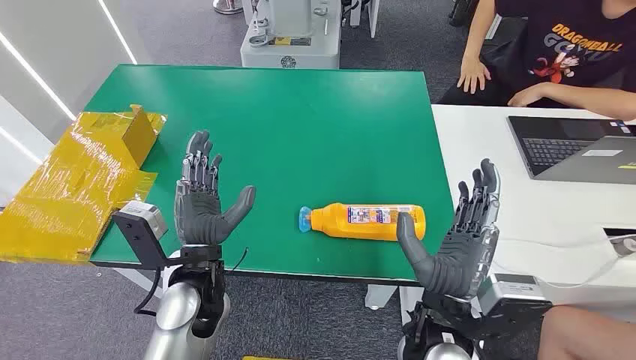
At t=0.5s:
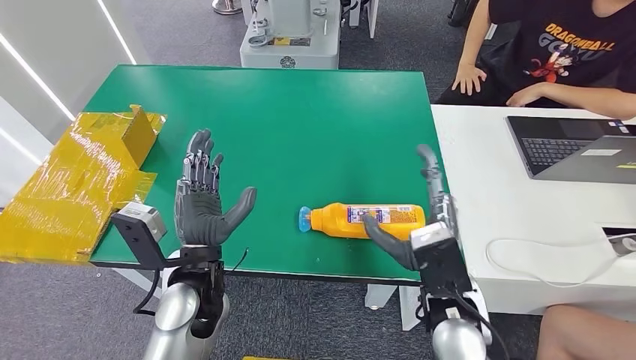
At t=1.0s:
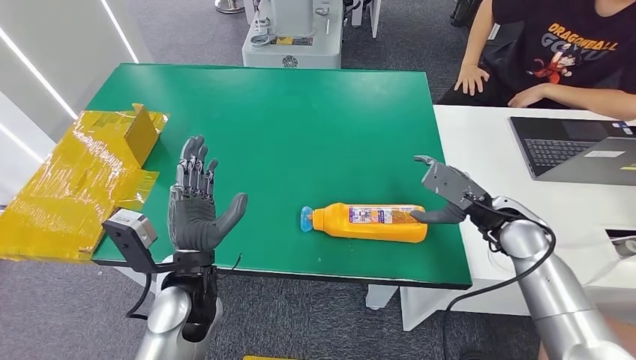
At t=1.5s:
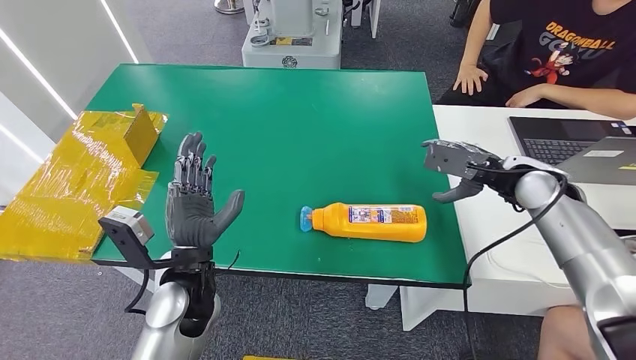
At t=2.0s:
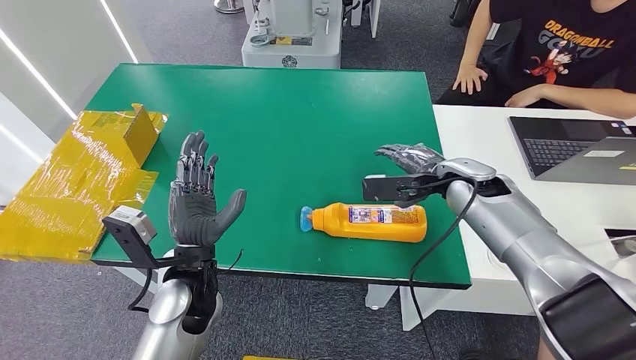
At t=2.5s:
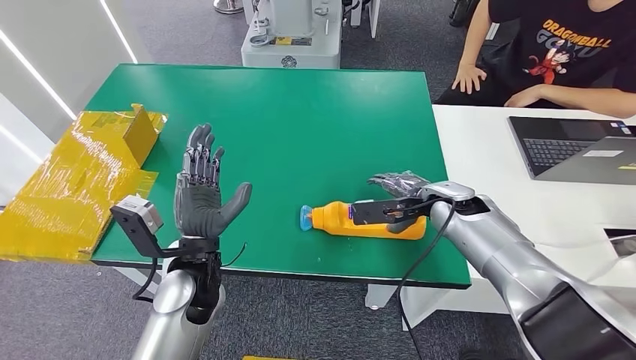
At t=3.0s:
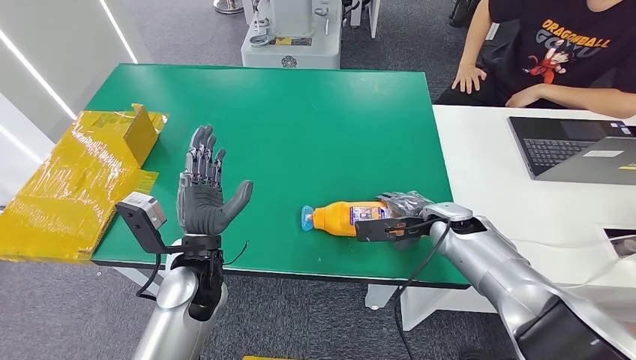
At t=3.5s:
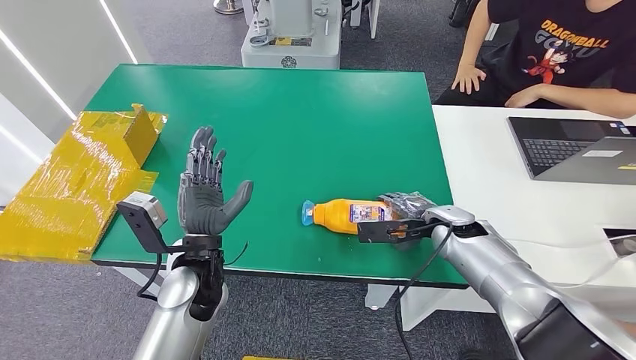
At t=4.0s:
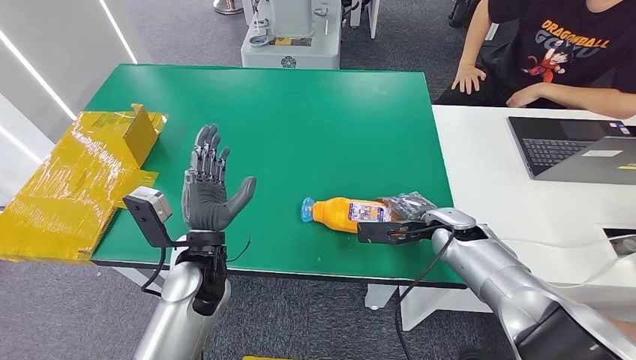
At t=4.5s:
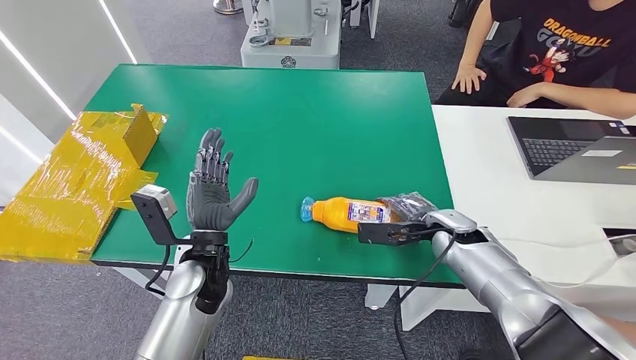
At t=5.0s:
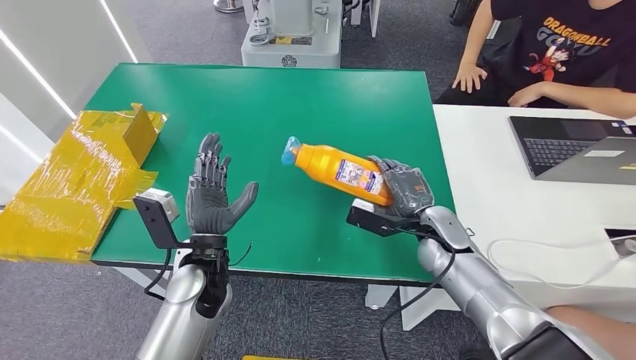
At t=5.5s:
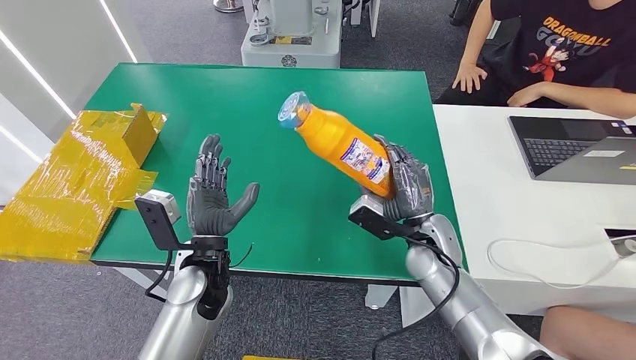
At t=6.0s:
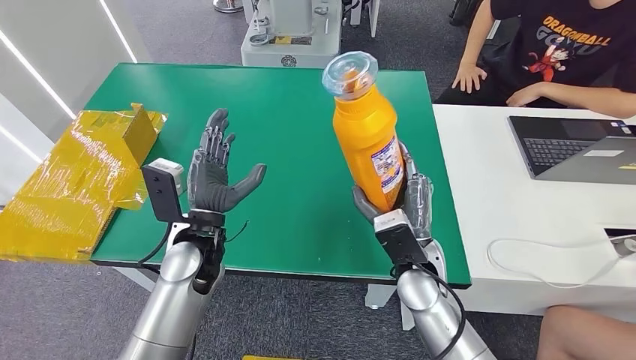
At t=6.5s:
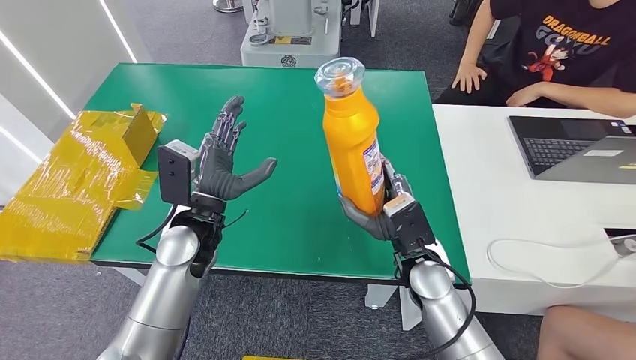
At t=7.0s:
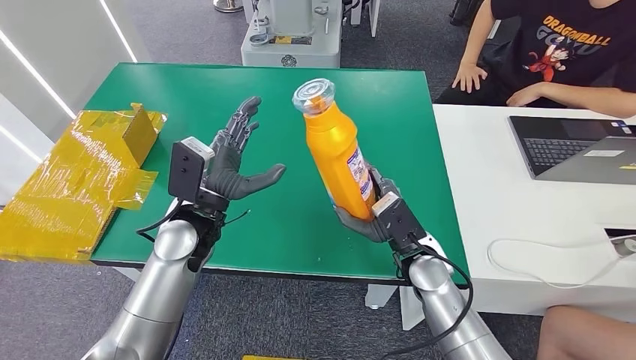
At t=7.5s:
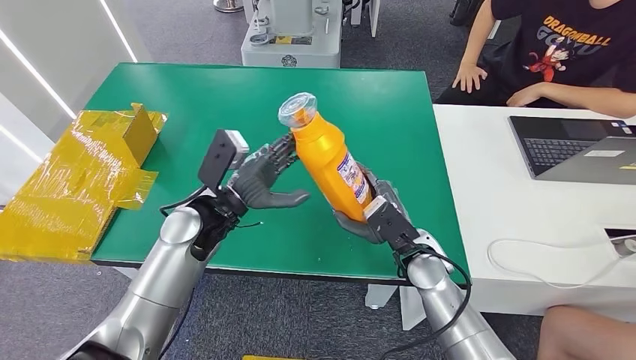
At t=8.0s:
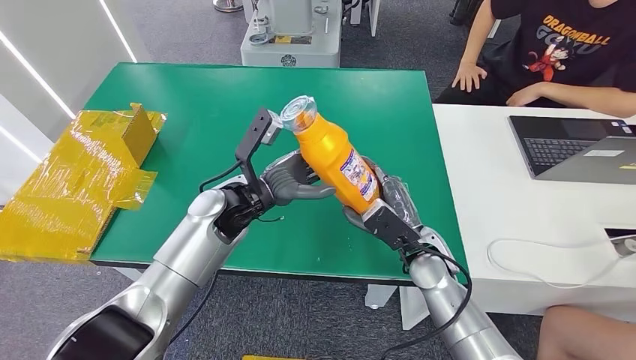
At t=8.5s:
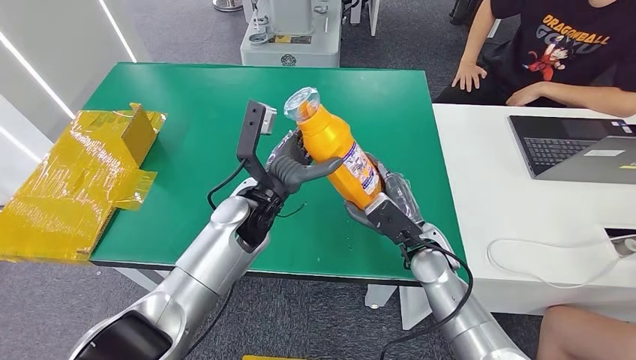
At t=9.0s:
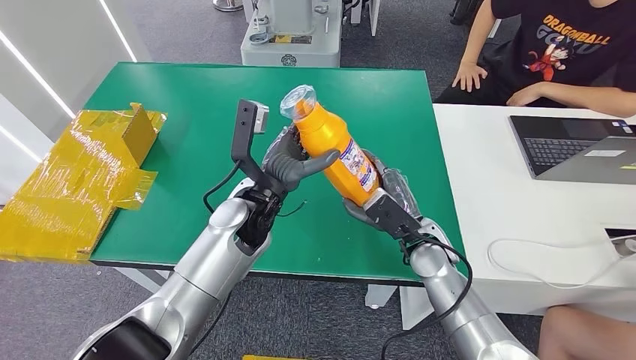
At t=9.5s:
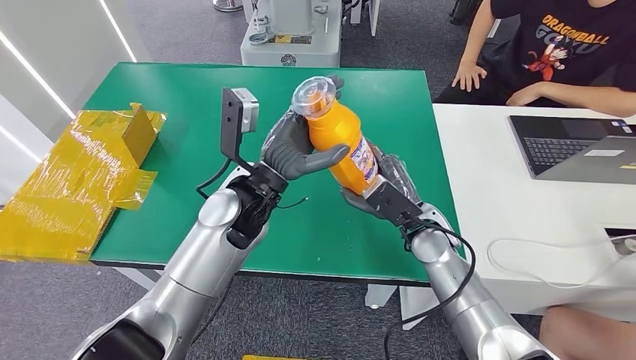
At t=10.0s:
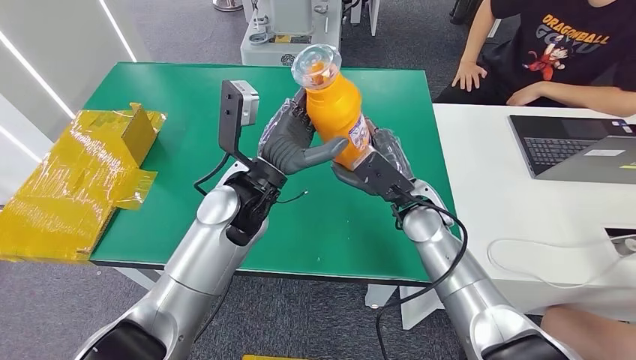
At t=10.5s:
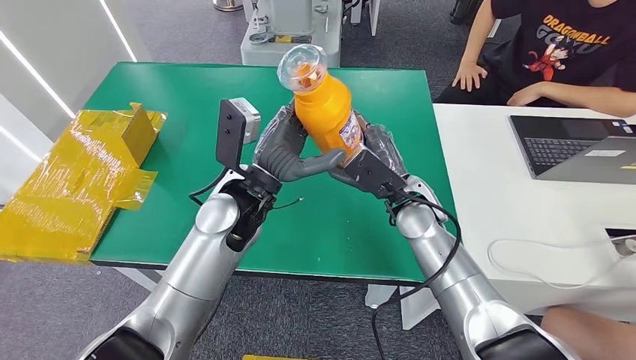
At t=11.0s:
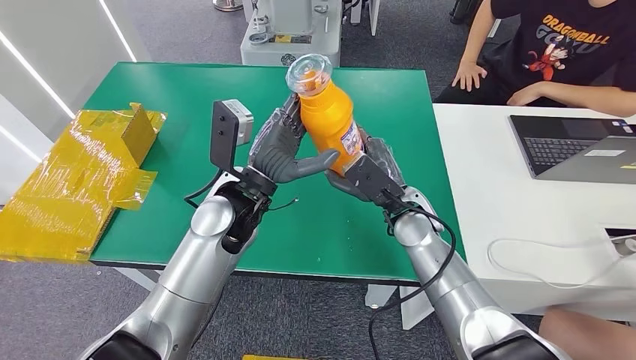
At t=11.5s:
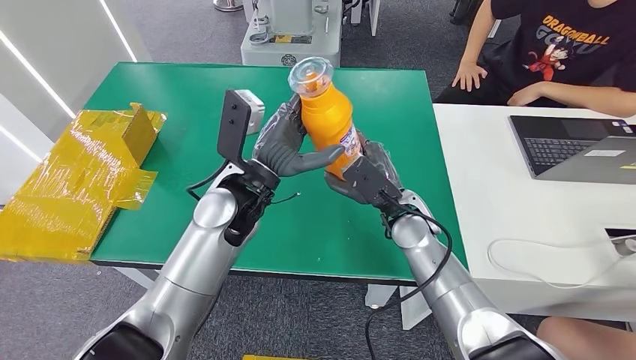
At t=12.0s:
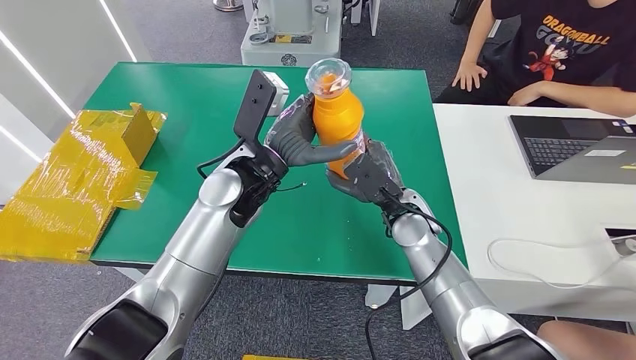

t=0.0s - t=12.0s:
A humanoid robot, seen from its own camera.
Step, t=0.0s - t=6.5s: Pick up the bottle from the table.
t=2.0s - t=4.0s: The right hand shifts roughly 10 cm downward.
t=6.0s - t=8.0s: The left hand moves forward, approximately 5 cm.
t=8.0s - t=10.0s: The right hand moves upward and forward, about 10 cm. Meanwhile the left hand moves upward and to the right, approximately 10 cm.
t=10.0s - t=12.0s: The hands stay close to where they were, moving slightly.

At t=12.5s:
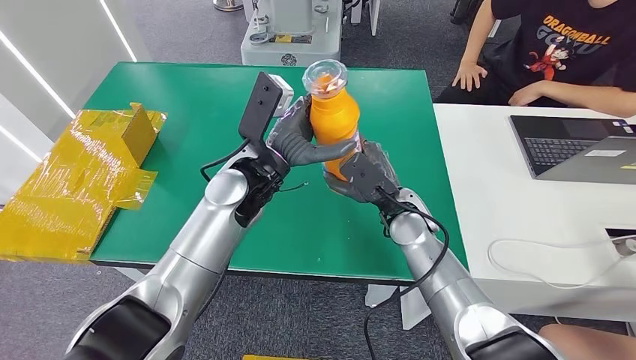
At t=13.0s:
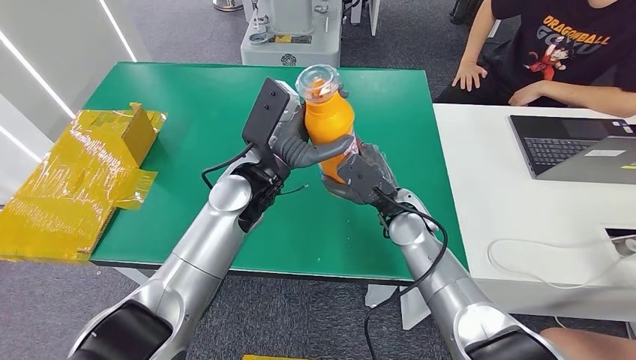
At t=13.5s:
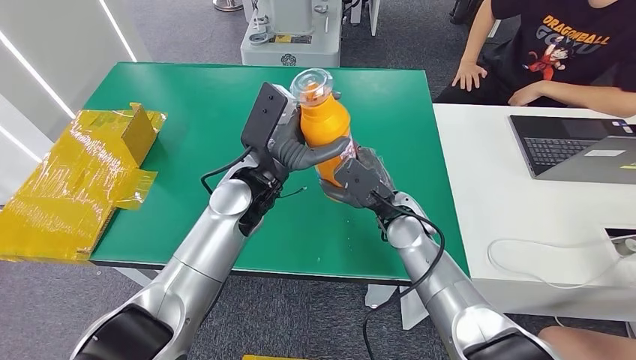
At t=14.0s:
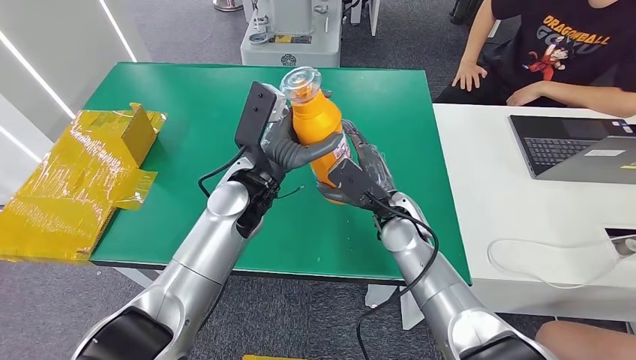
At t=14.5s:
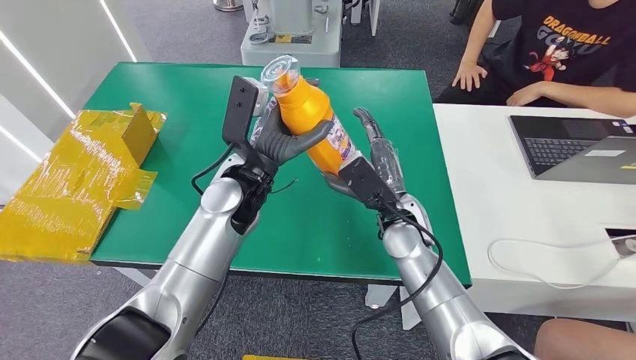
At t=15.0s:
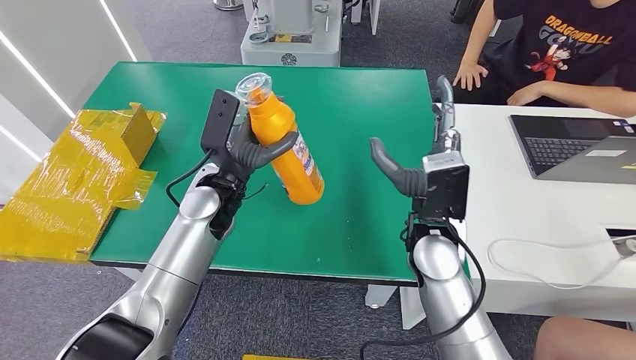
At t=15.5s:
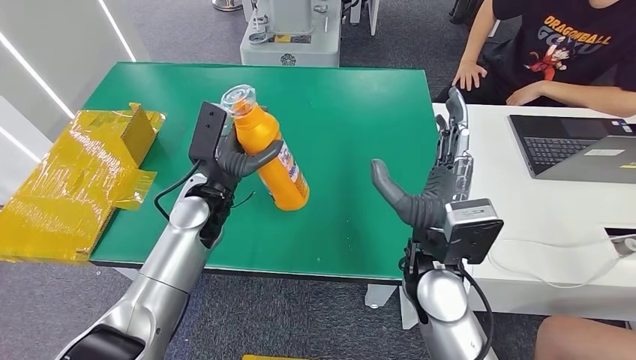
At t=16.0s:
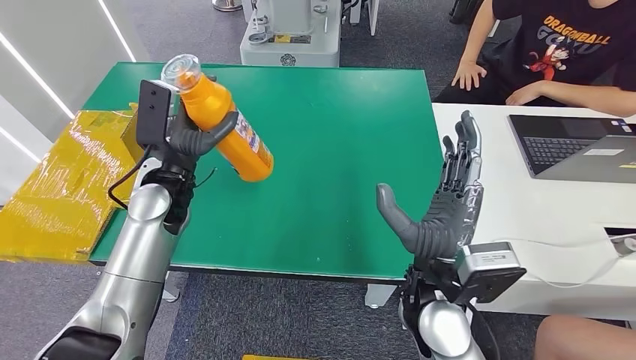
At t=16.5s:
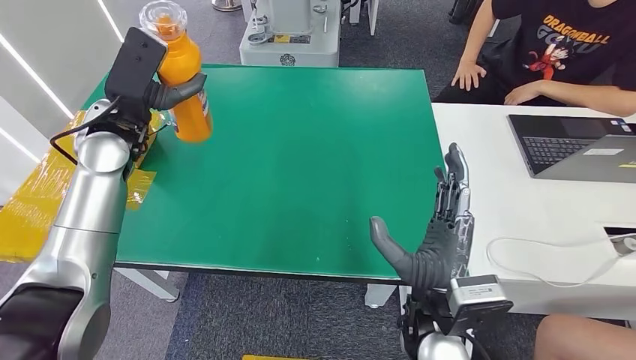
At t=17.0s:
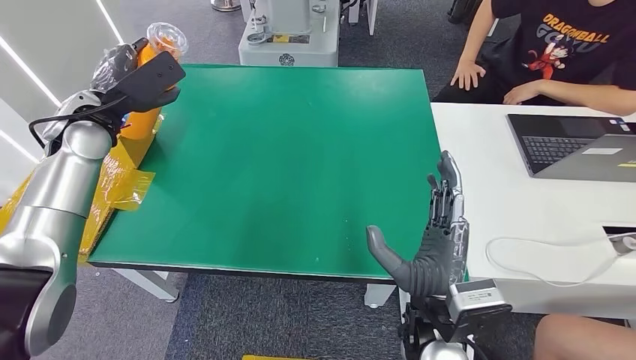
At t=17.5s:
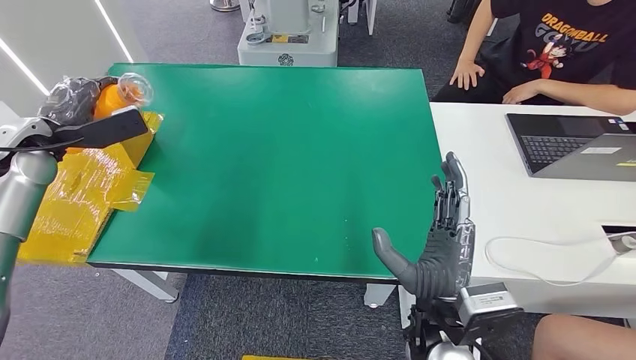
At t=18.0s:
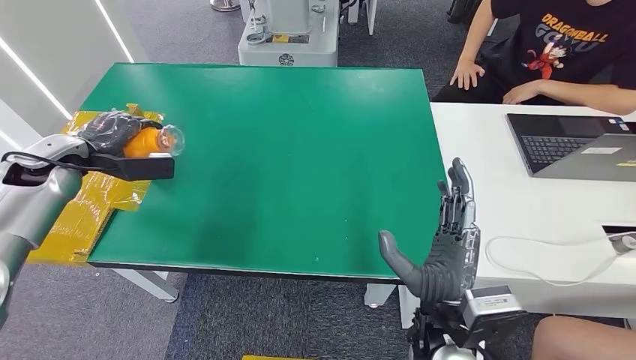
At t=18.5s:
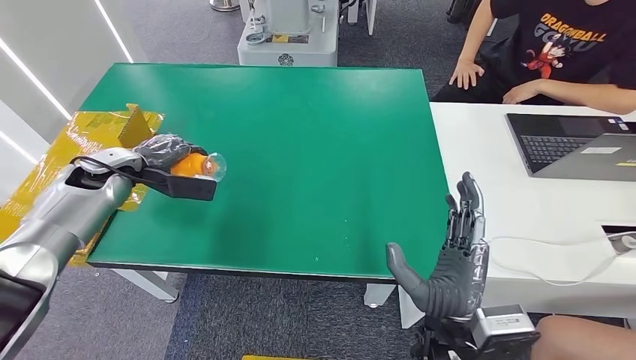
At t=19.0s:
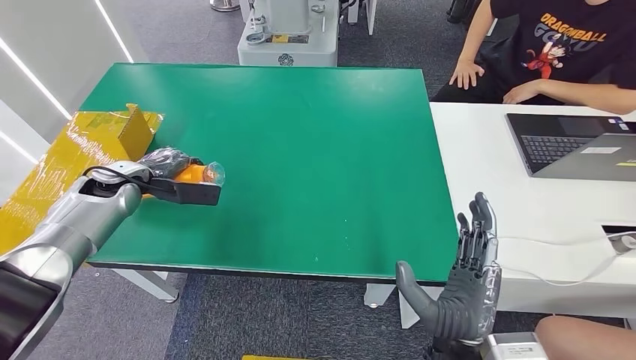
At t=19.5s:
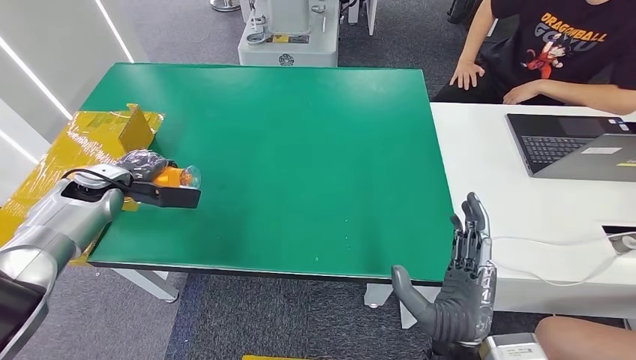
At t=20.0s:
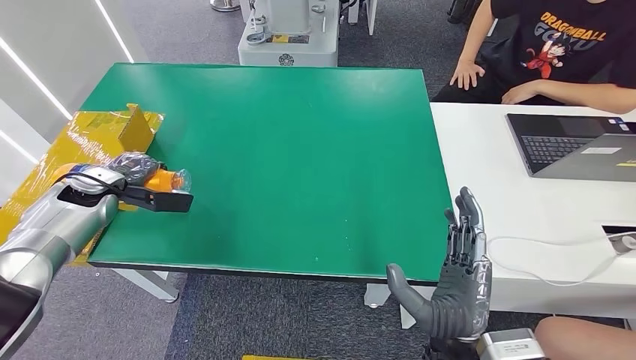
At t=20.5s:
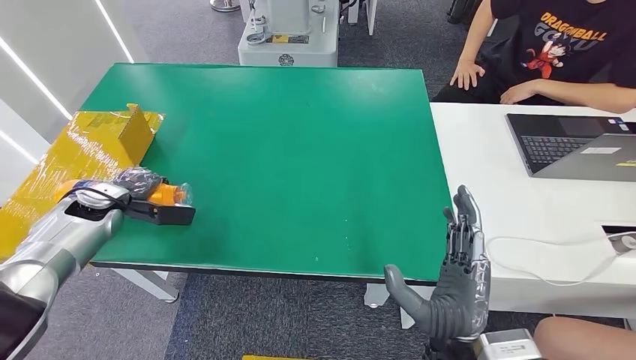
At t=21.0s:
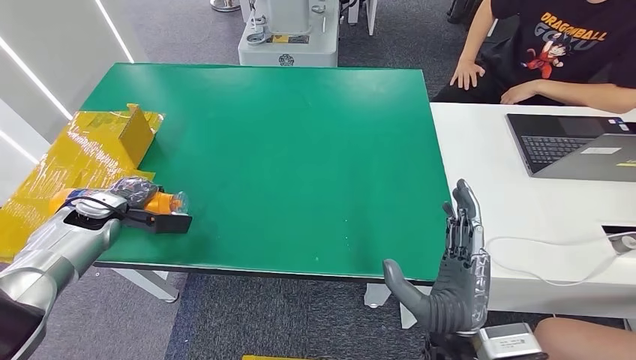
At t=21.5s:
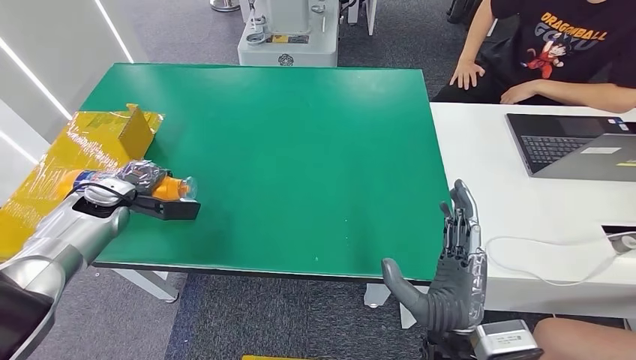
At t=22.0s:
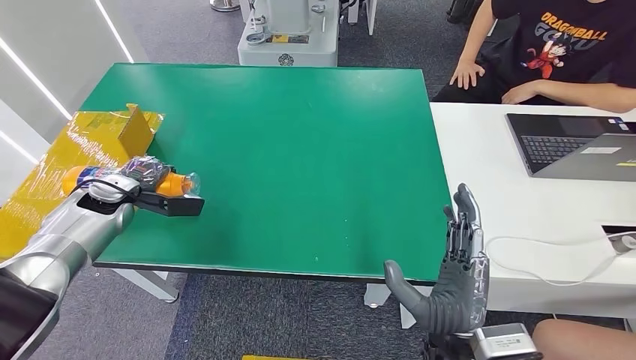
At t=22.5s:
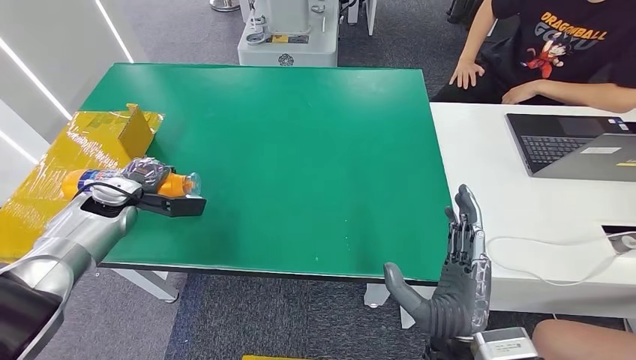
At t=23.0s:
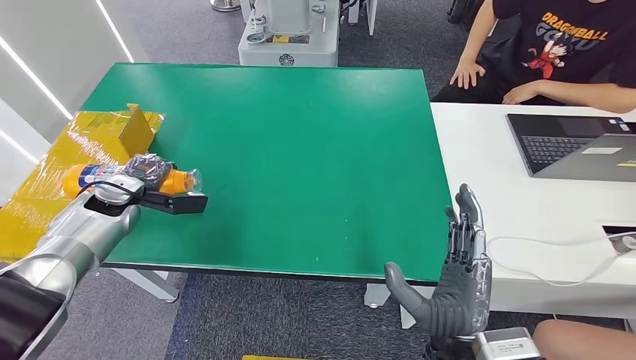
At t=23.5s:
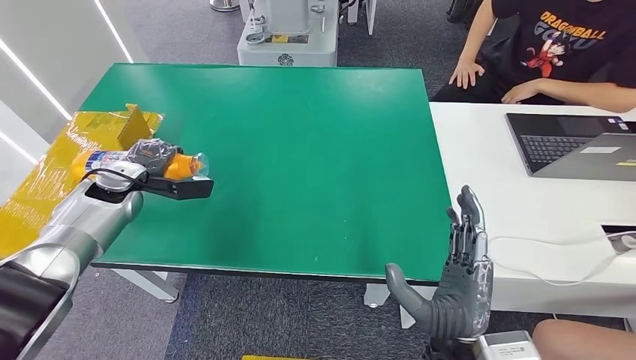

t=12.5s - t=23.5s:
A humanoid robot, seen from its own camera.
t=12.5s - t=14.5s: There are only small adjustments of the hands.
t=18.0s - t=20.0s: The left hand goes some 5 cm downward.
t=20.0s - t=23.5s: There are only small adjustments of the hands.
